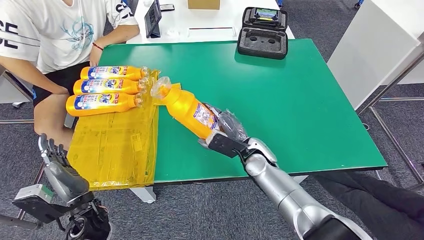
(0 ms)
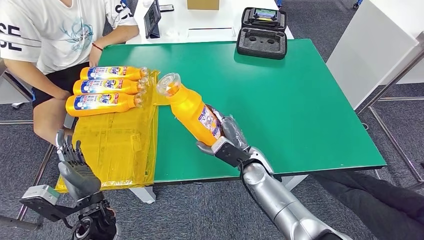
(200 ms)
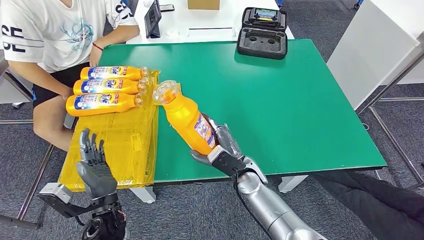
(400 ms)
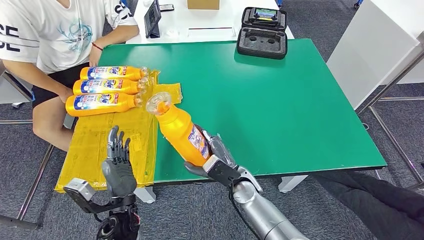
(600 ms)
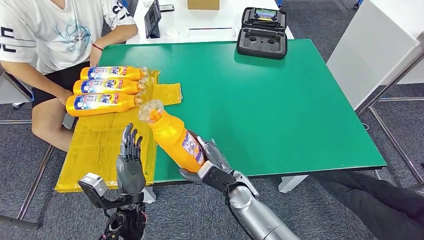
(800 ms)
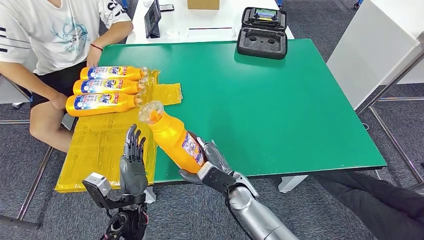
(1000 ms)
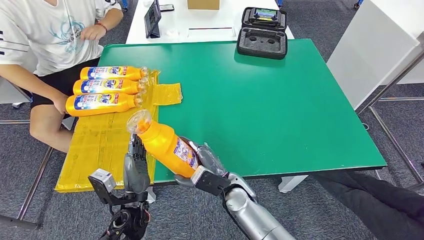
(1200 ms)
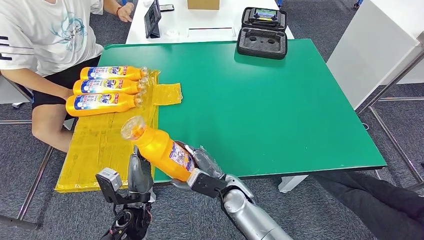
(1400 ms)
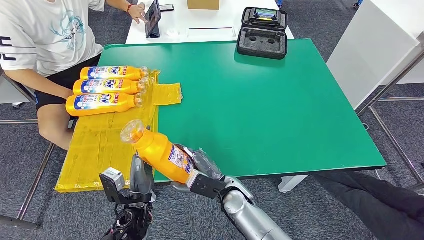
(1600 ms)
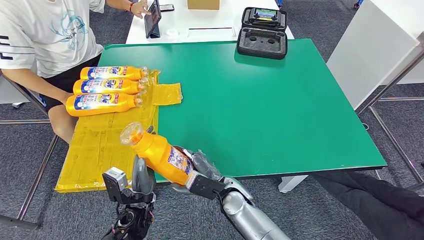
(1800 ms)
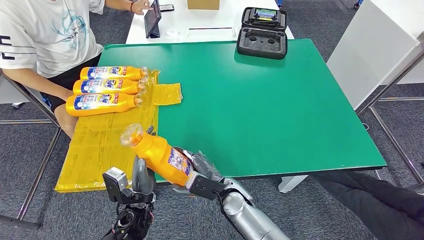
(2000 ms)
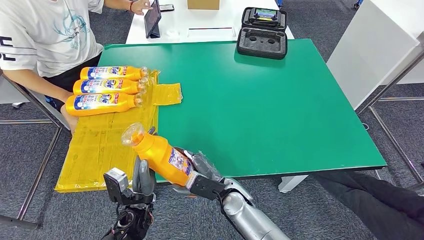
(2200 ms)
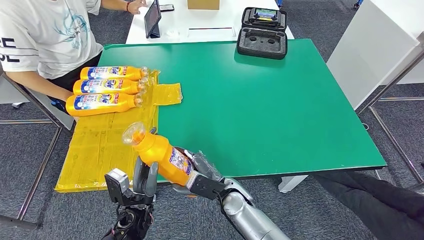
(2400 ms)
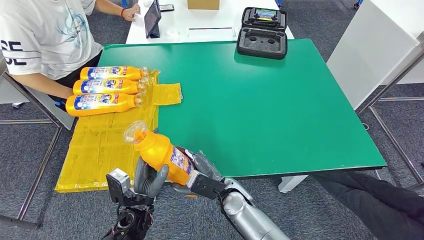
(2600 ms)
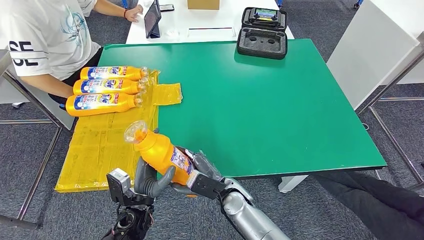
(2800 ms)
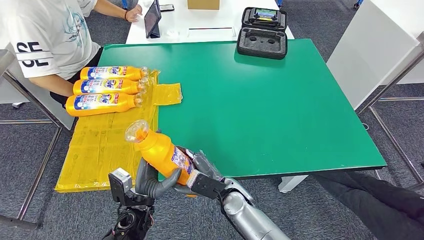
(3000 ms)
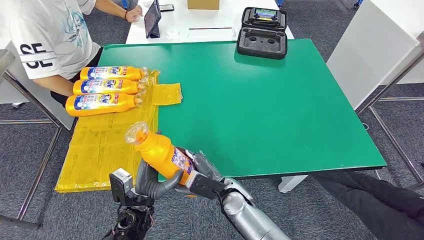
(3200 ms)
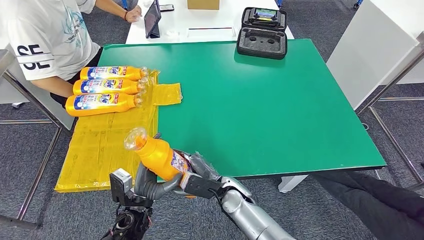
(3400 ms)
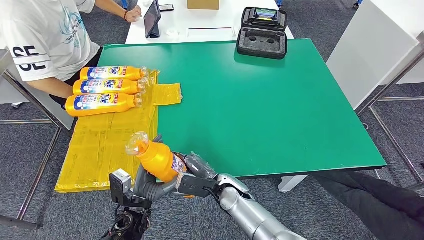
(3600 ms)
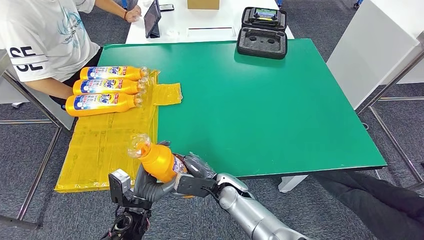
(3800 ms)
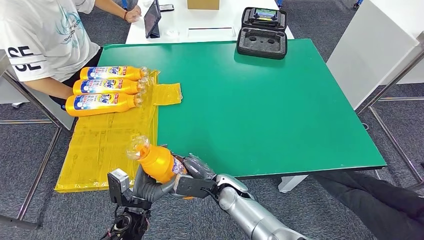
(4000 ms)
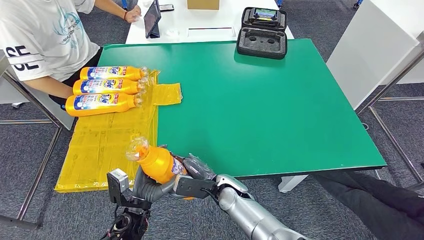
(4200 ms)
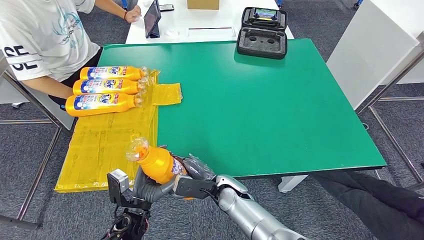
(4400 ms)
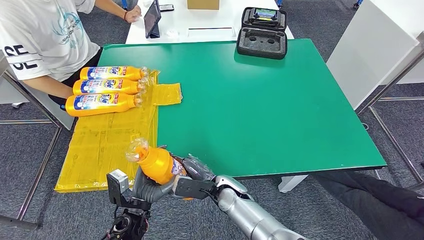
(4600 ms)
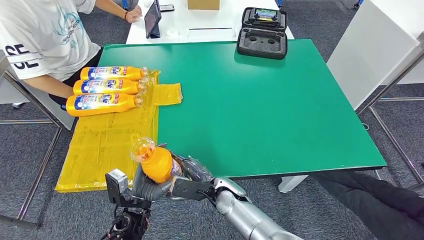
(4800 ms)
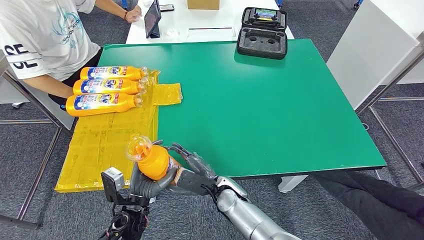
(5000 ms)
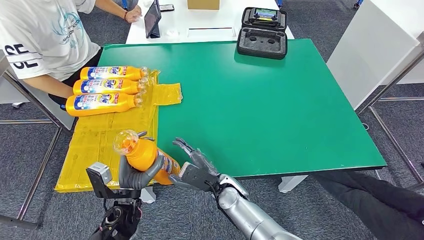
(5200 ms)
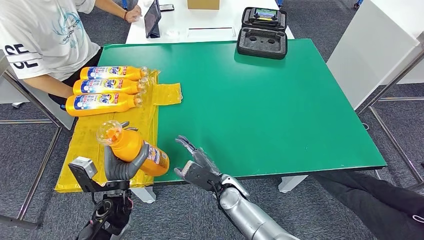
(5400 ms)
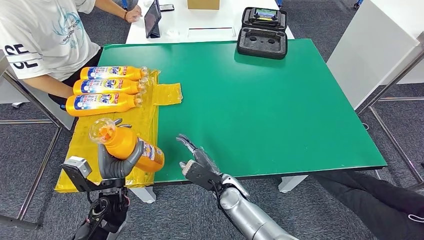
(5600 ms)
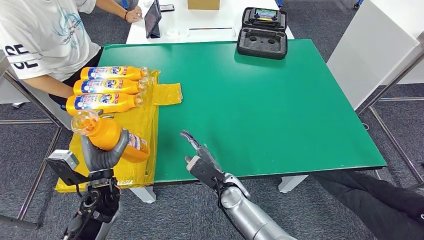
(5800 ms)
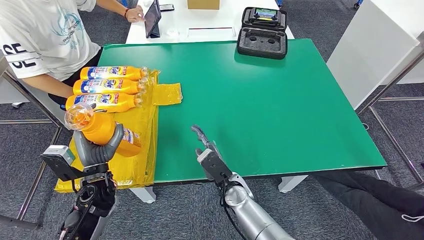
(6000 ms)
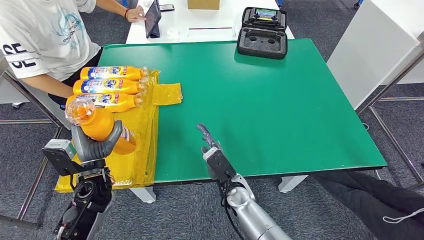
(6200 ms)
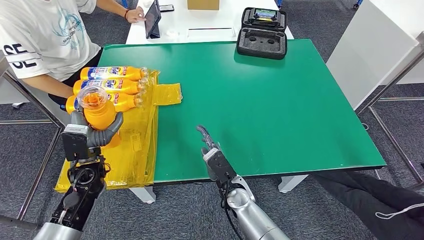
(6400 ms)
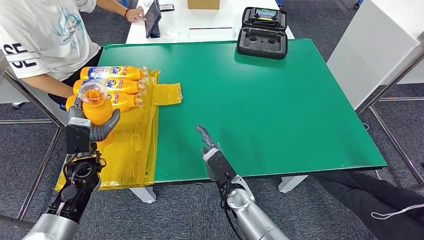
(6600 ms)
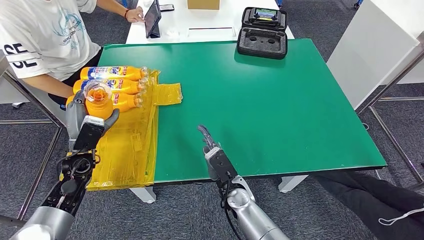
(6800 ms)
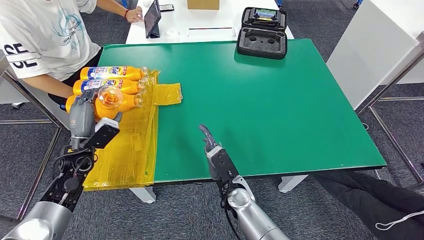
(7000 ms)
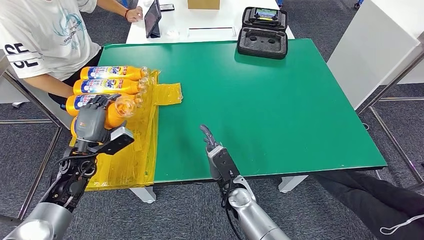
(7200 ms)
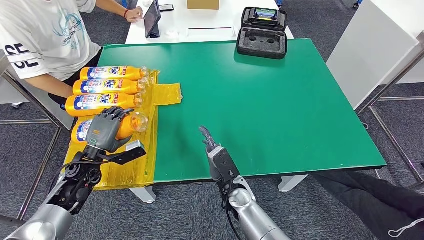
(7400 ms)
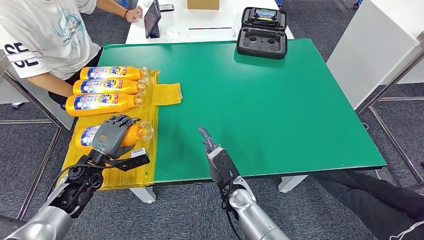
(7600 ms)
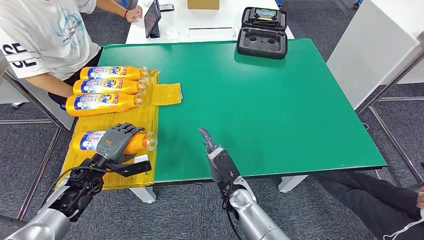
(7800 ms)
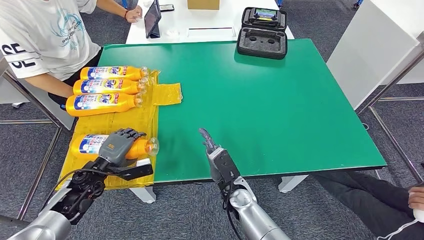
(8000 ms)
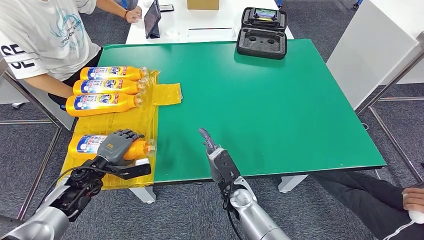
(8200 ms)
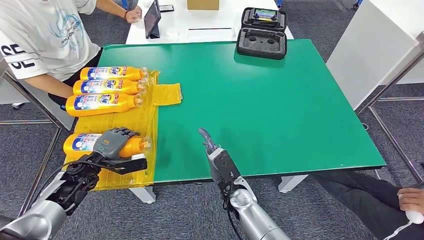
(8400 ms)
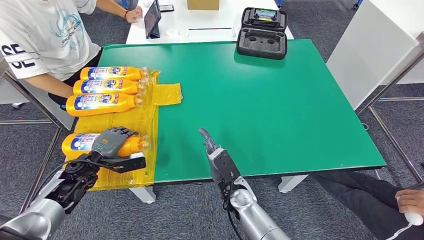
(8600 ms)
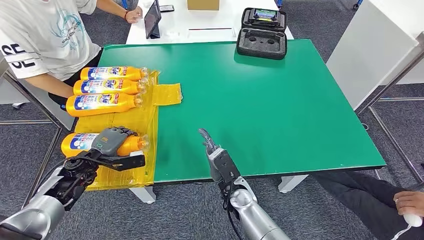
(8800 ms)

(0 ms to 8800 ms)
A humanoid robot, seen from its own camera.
Step, 2200 ms - 8600 ms: Flip the fast-moving consumer goods bottle to the front side.
1400 ms - 3000 ms: The hands stay close to where they were, moving slightly.
3000 ms - 4400 ms: The hands stay close to where they were, moving slightly.
4400 ms - 5800 ms: The left hand goes roughly 10 cm to the left, upward and forward.
5800 ms - 7400 ms: The left hand moves to the left and forward, roughly 10 cm.
